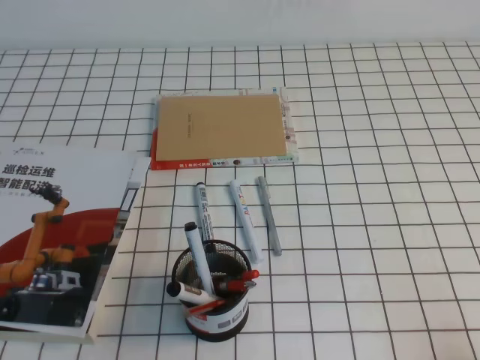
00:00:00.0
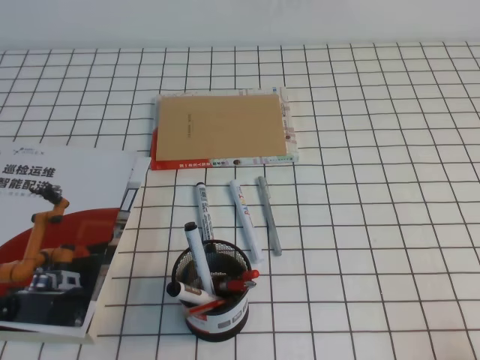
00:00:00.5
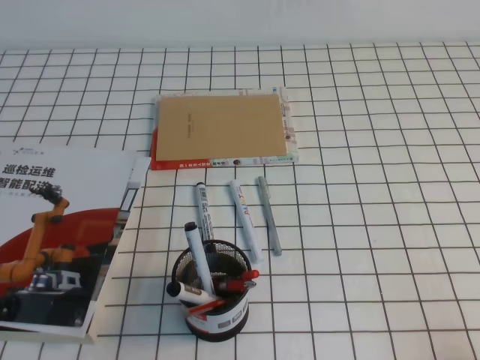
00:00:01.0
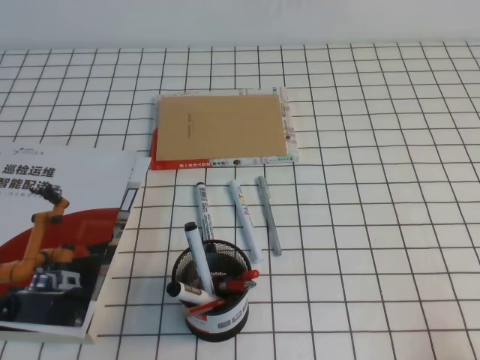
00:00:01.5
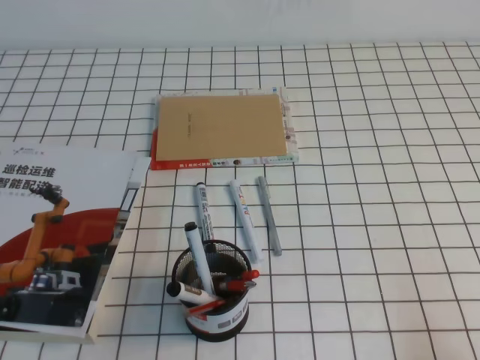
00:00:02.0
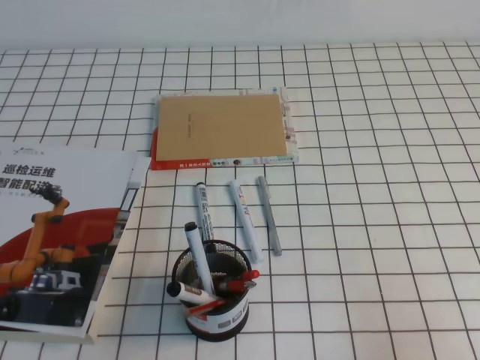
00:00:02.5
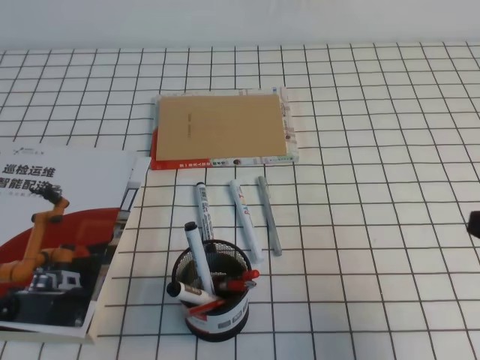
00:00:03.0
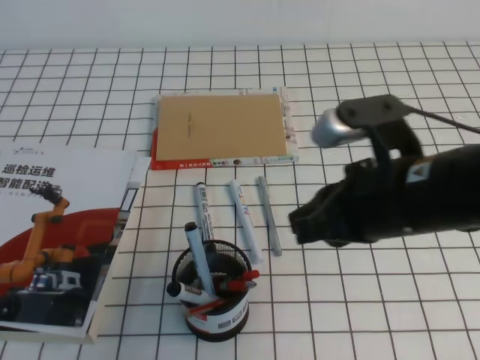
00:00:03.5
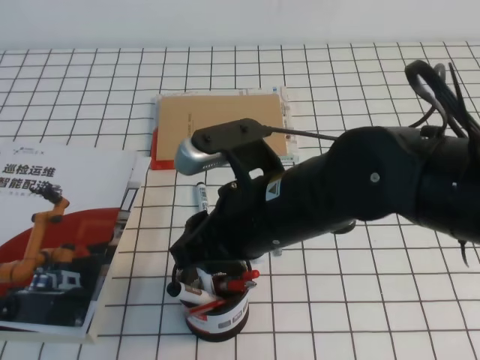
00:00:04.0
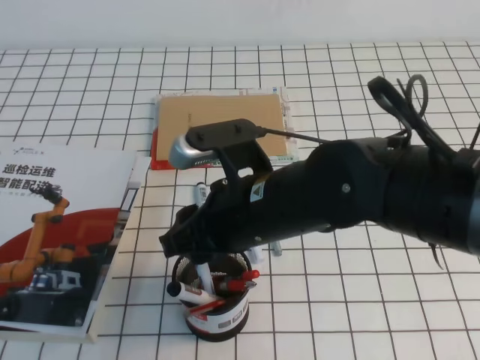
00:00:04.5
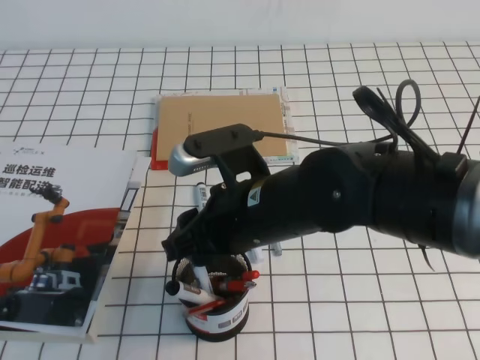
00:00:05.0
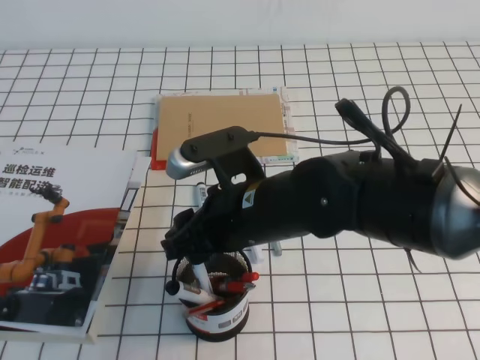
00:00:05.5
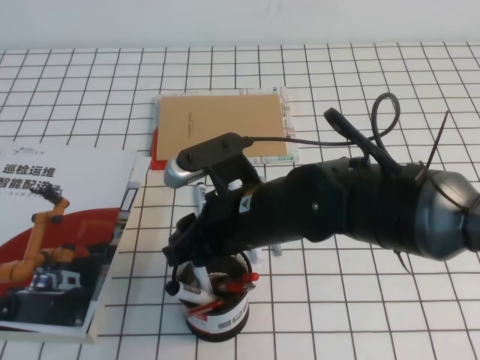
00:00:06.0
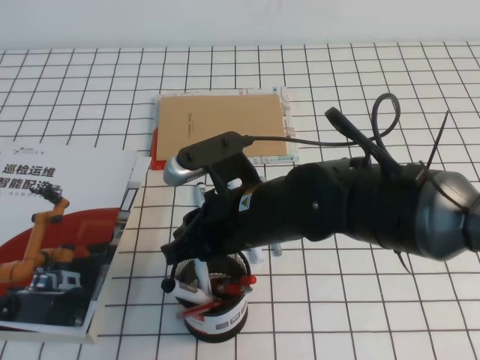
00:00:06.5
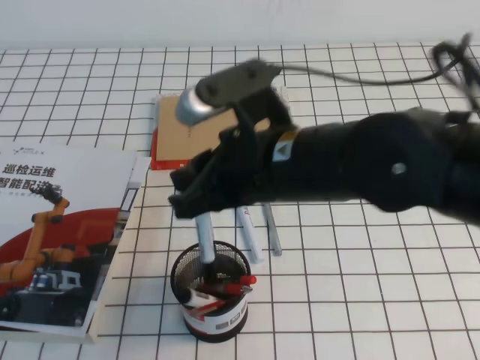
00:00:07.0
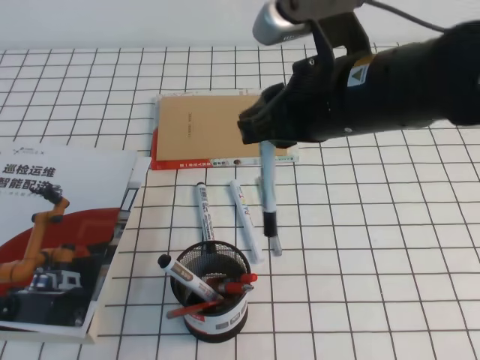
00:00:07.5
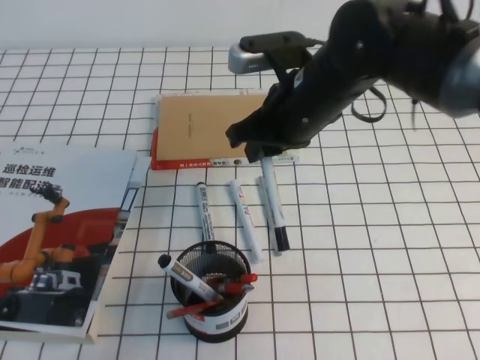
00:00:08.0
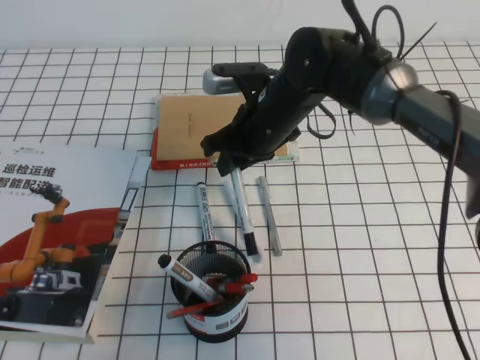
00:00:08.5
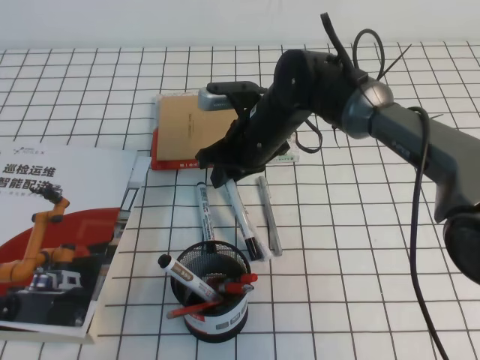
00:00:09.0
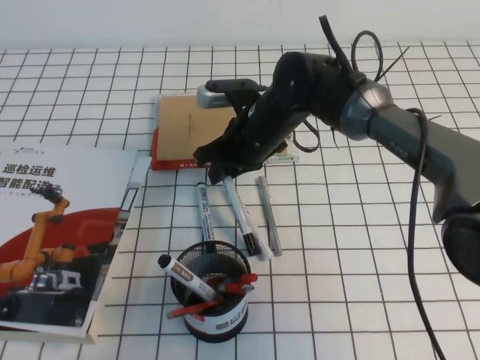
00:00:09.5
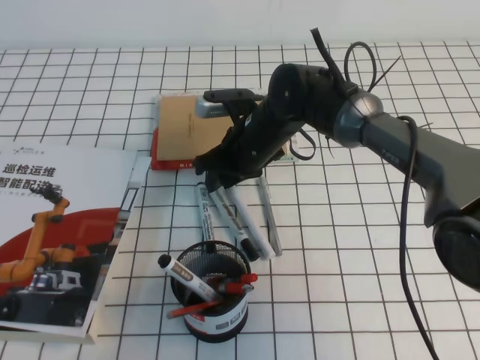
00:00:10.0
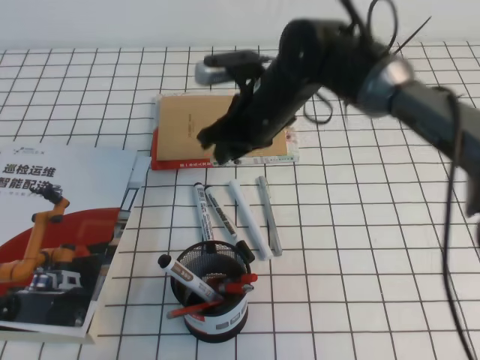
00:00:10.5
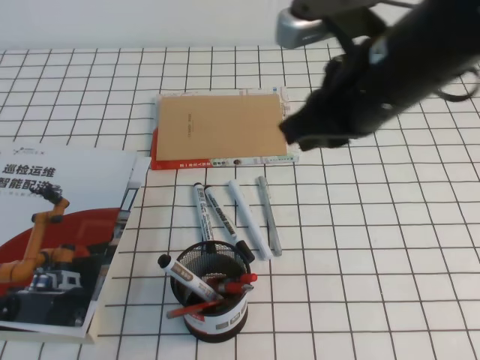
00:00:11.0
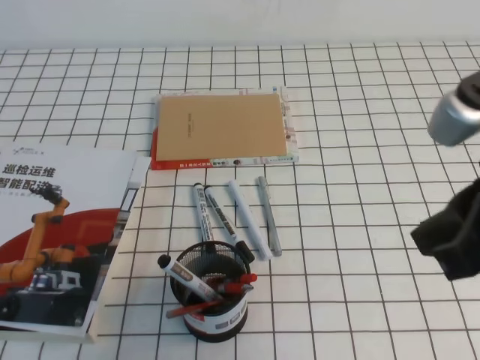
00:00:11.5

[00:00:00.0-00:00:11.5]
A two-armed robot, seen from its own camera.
00:00:02.0 to 00:00:04.0: The right gripper goes approximately 30 cm to the left and forward, and opens up.
00:00:04.0 to 00:00:06.0: The right gripper moves downward, approximately 5 cm.
00:00:06.0 to 00:00:07.5: The right gripper heads upward and to the right, covering approximately 15 cm, and closes its fingers.
00:00:07.5 to 00:00:09.5: The right gripper goes about 25 cm forward, downward and to the left.
00:00:09.5 to 00:00:11.5: The right gripper shifts about 35 cm backward, to the right and upward.

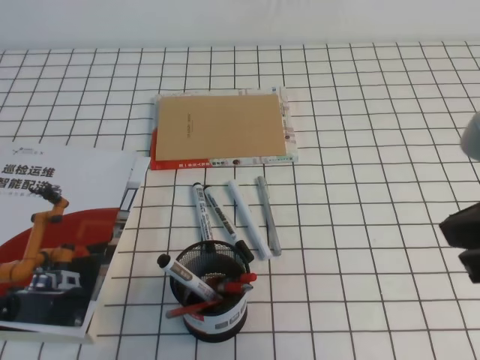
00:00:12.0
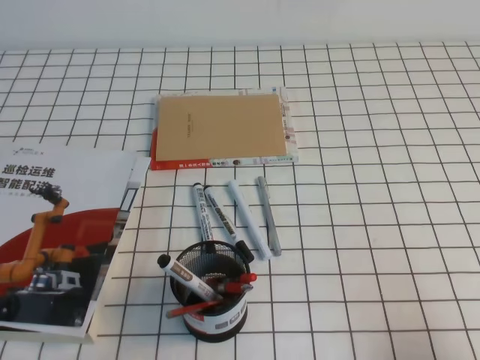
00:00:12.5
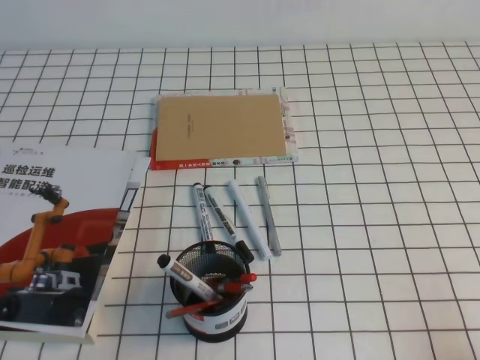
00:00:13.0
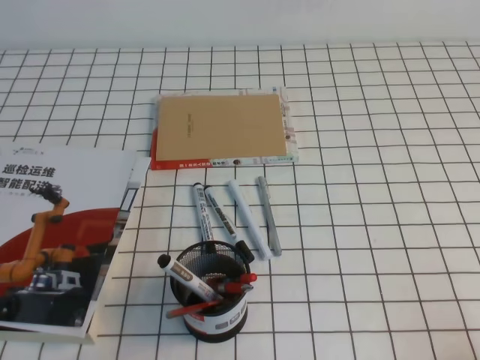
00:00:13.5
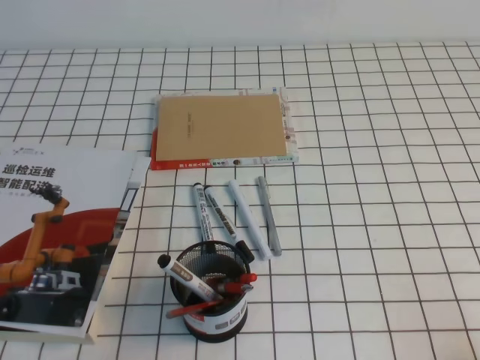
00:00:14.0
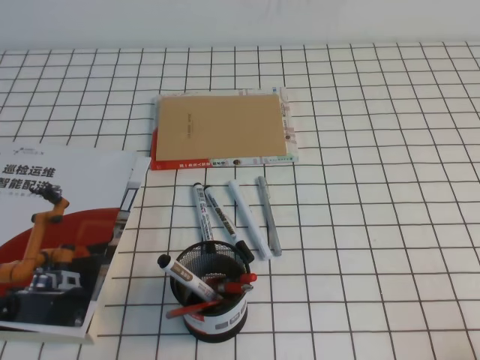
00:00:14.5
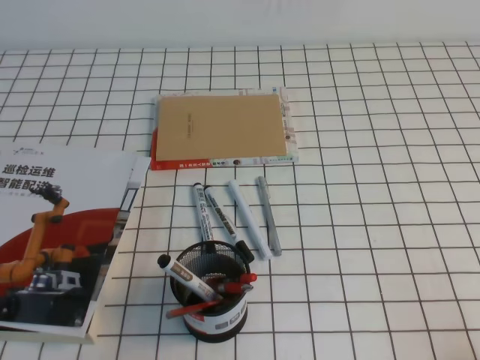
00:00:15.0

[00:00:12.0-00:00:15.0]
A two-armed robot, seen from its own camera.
Step, 00:00:12.0 to 00:00:15.0: Pick up the pen from the pen holder.
00:00:12.0 to 00:00:13.5: The right gripper shifts about 25 cm downward, backward and to the right.
00:00:13.5 to 00:00:15.0: The two grippers keep their place.
